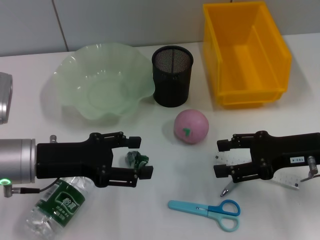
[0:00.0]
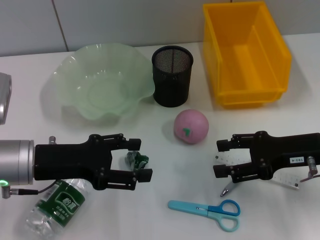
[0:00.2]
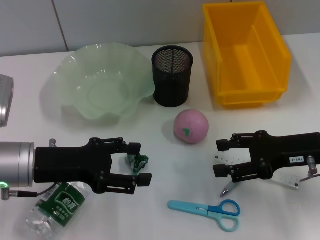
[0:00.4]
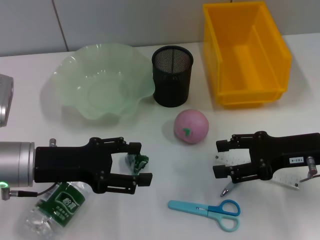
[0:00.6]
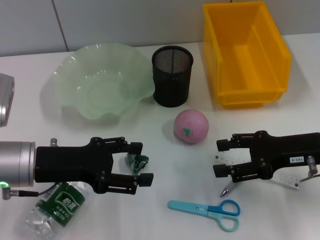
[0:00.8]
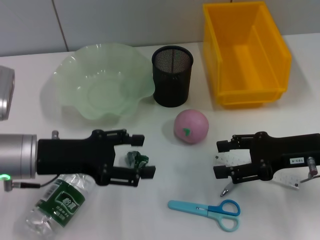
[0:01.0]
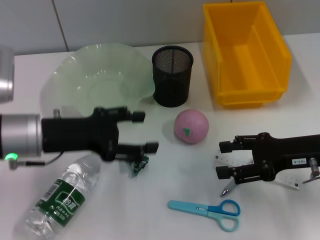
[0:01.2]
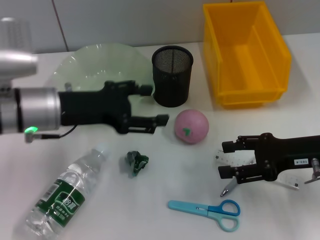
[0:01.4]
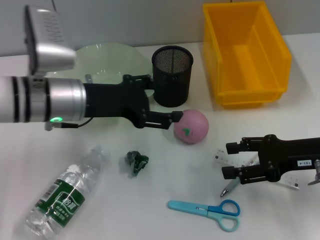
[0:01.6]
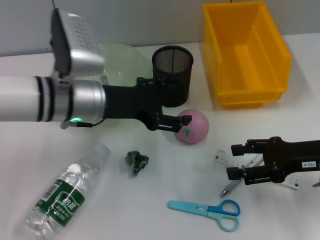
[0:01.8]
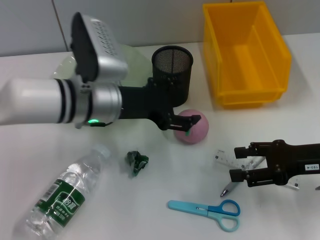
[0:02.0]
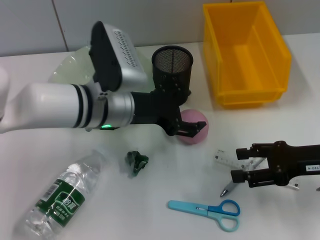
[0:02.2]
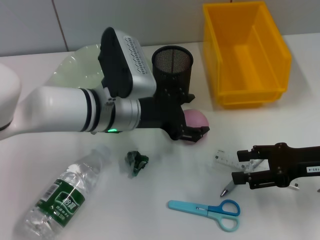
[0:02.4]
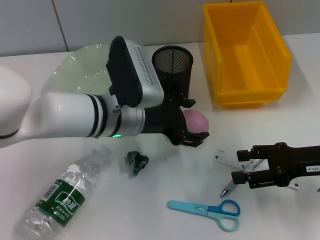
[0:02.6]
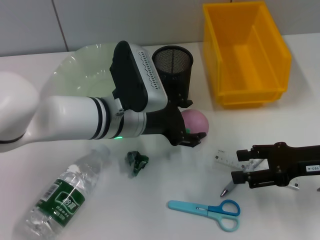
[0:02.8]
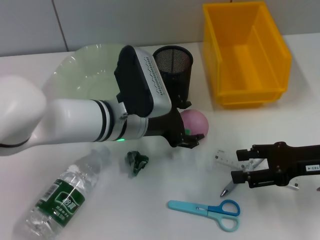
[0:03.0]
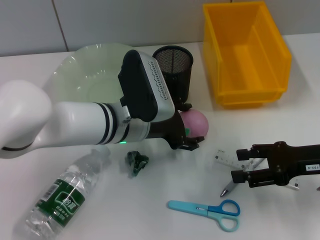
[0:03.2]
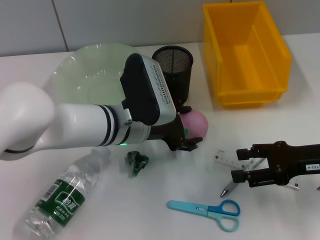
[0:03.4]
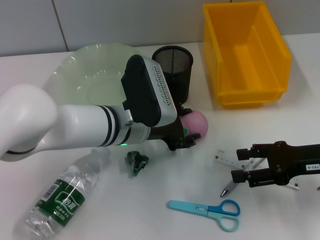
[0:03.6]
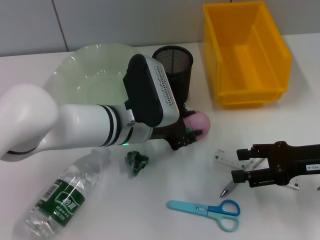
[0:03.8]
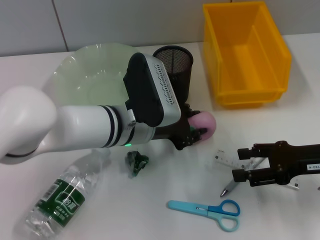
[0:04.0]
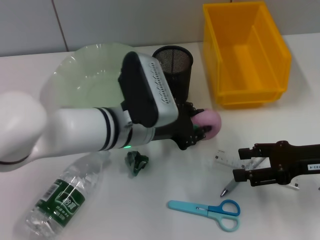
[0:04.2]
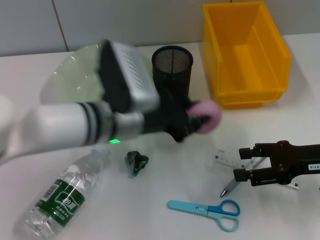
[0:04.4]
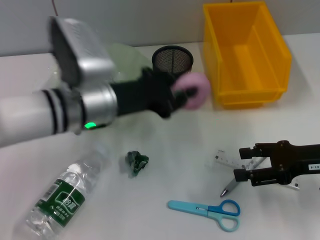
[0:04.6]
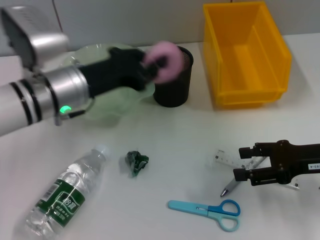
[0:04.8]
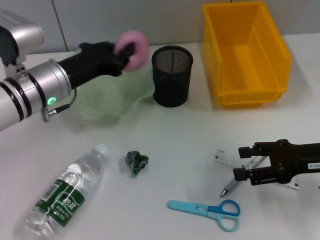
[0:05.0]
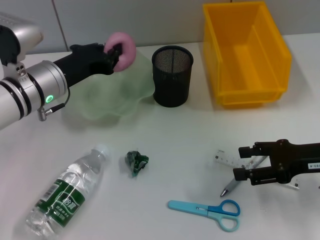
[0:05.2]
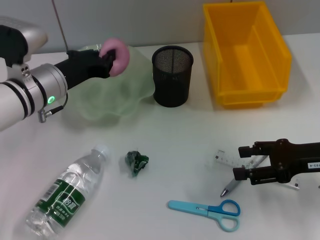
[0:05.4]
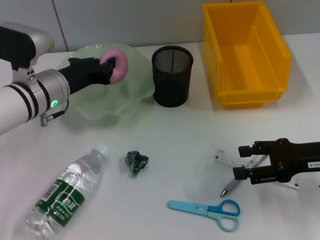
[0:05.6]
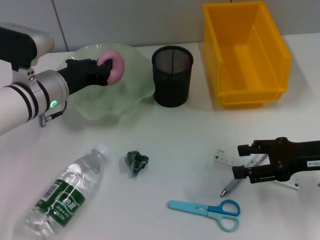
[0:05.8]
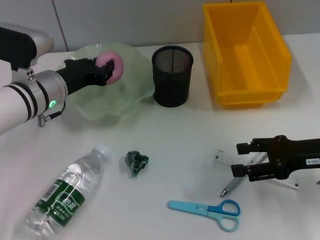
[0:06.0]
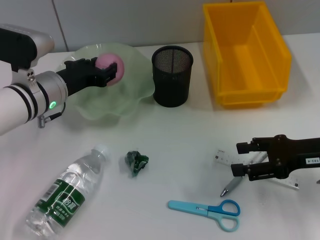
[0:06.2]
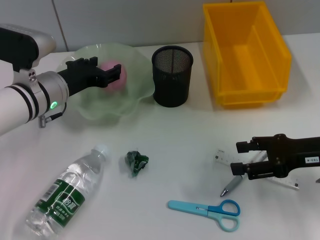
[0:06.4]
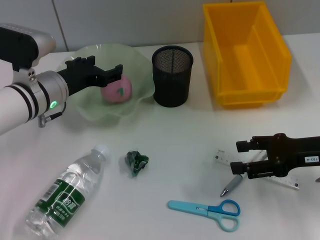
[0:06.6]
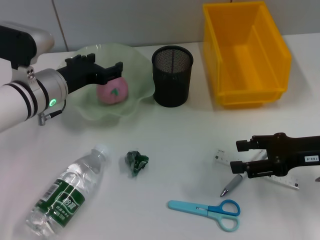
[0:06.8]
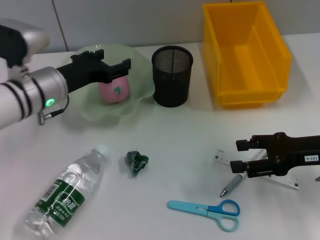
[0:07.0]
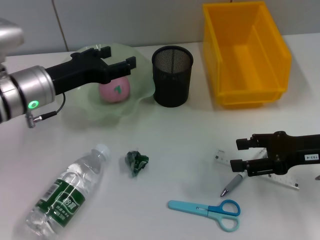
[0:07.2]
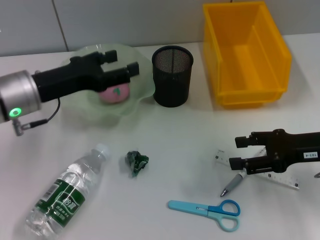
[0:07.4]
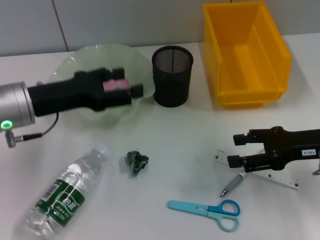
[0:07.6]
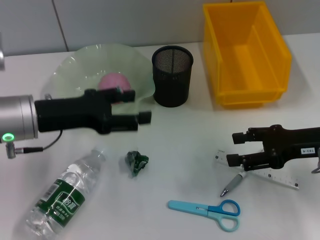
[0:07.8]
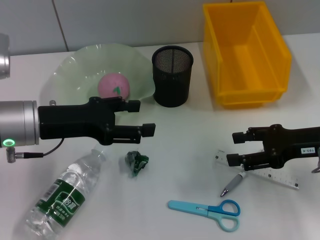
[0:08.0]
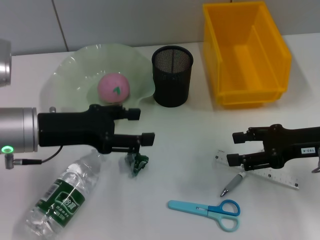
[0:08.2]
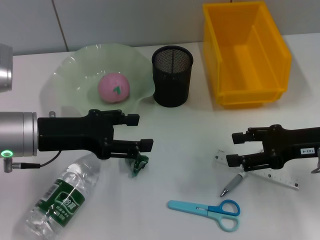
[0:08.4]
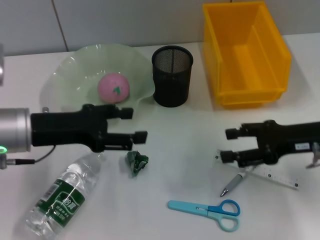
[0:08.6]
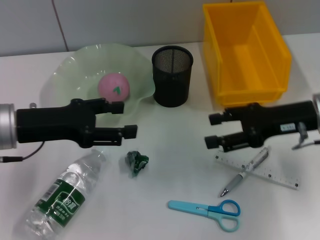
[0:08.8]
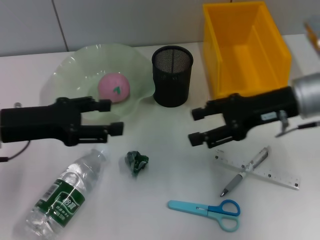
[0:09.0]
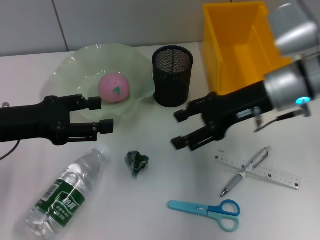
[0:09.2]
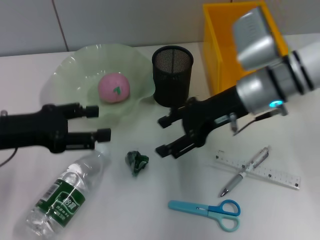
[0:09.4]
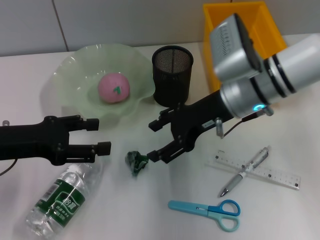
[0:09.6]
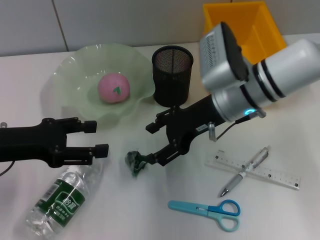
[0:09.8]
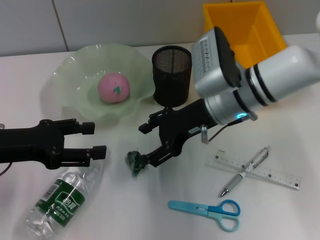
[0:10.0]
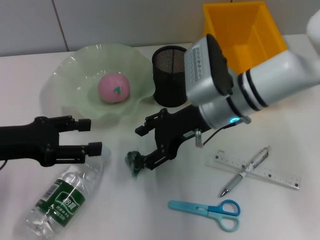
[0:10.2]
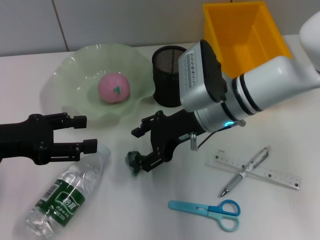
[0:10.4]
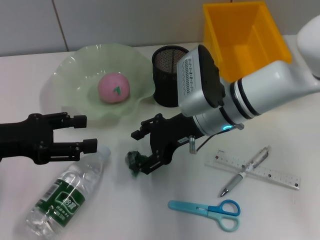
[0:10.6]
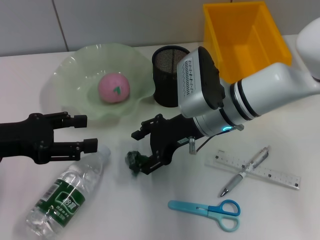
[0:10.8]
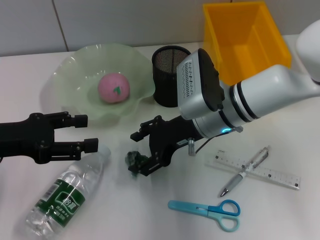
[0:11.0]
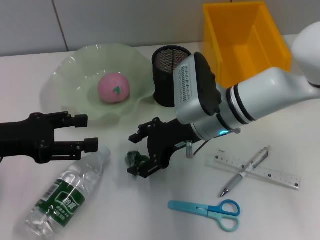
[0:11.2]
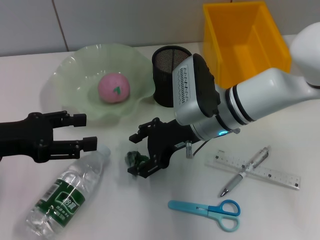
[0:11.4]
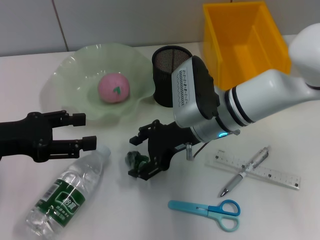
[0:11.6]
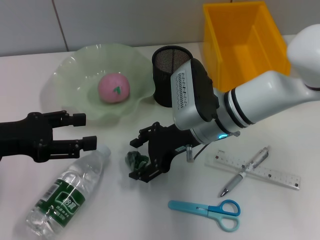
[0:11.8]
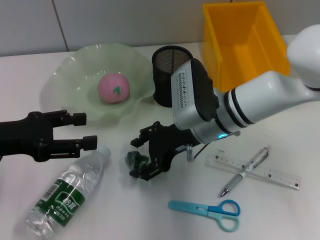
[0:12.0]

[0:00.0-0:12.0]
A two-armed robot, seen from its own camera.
Step, 0:00.0 to 0:03.6: Grab the peach with the left hand.
Step, 0:04.0 to 0:06.6: Place the peach into the fruit bowl with the left hand.
0:00.0 to 0:01.6: The left gripper heads forward and to the right, covering about 10 cm.
0:01.6 to 0:03.0: The left gripper moves to the right, roughly 10 cm.
0:03.0 to 0:04.4: The left gripper closes up.
0:04.4 to 0:06.0: The left gripper moves to the left and forward, approximately 10 cm.
0:06.0 to 0:07.6: The left gripper is displaced backward by roughly 5 cm, and opens up.
0:07.6 to 0:09.0: The right gripper heads to the left and forward, covering approximately 10 cm.
0:09.0 to 0:10.4: The right gripper travels to the left by about 10 cm.
0:10.4 to 0:12.0: The grippers make only small movements.

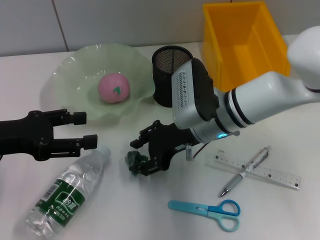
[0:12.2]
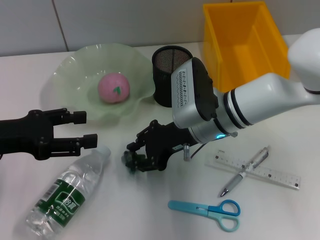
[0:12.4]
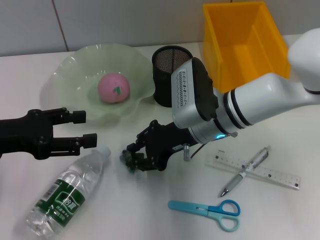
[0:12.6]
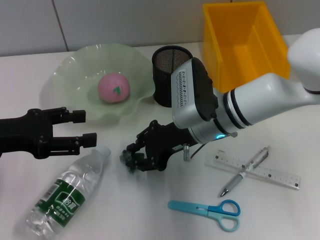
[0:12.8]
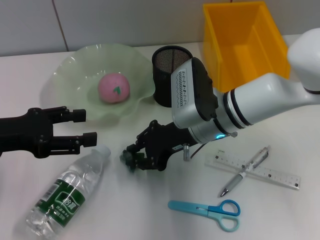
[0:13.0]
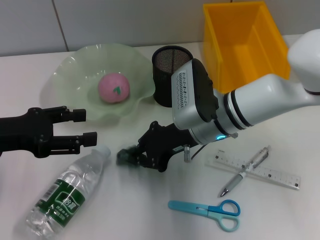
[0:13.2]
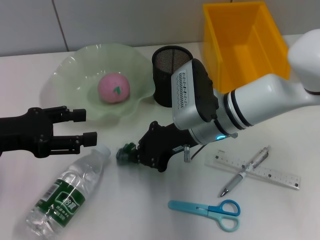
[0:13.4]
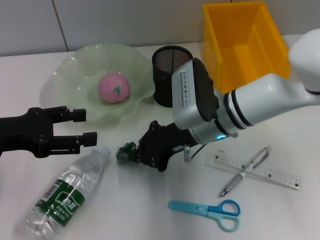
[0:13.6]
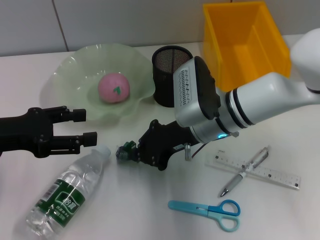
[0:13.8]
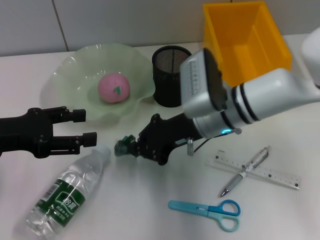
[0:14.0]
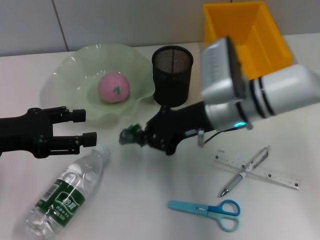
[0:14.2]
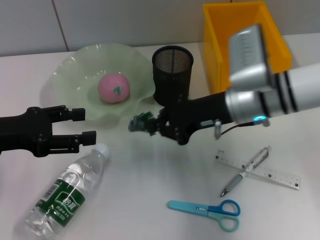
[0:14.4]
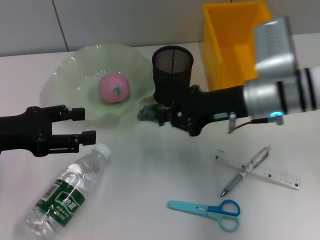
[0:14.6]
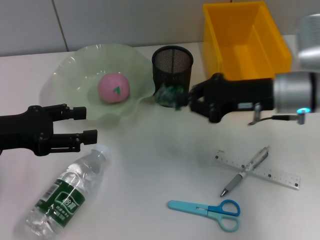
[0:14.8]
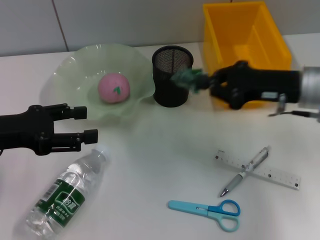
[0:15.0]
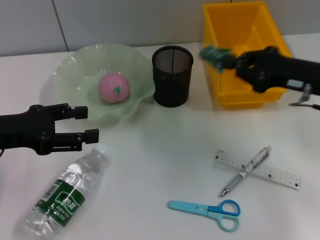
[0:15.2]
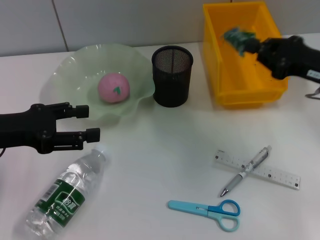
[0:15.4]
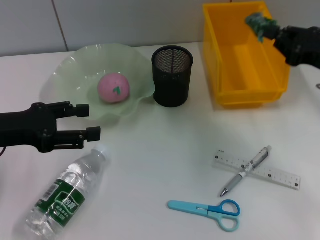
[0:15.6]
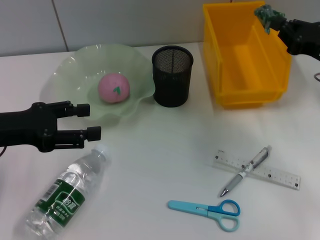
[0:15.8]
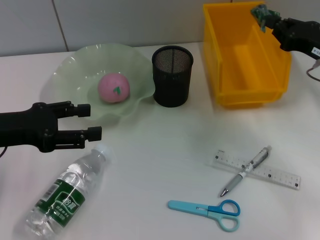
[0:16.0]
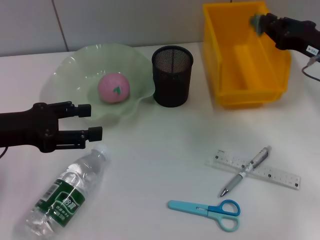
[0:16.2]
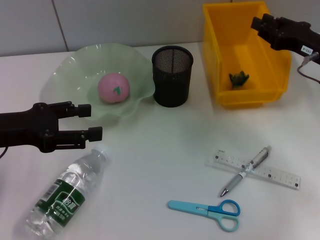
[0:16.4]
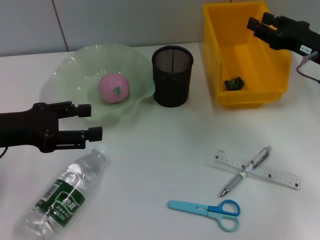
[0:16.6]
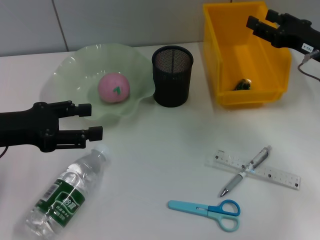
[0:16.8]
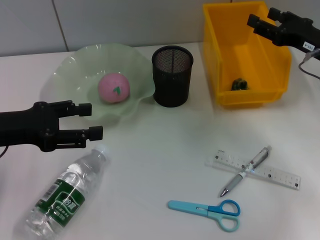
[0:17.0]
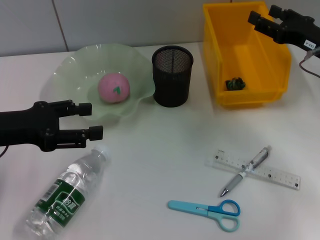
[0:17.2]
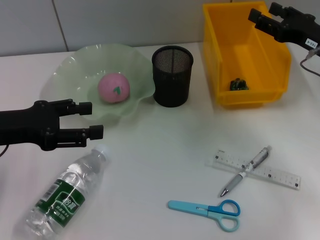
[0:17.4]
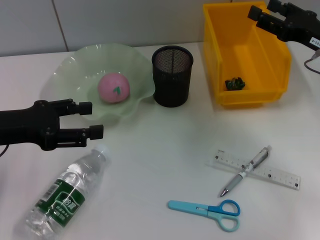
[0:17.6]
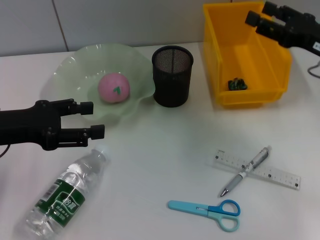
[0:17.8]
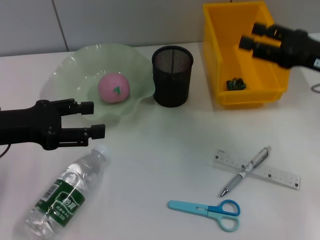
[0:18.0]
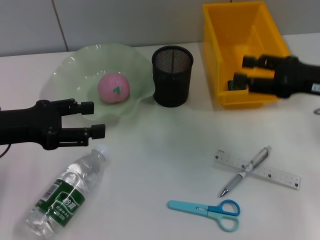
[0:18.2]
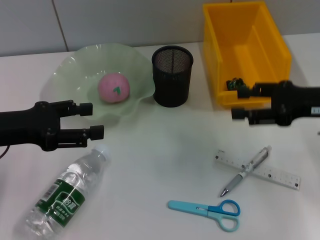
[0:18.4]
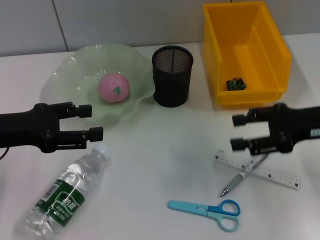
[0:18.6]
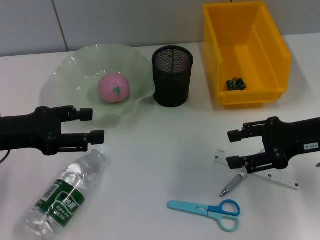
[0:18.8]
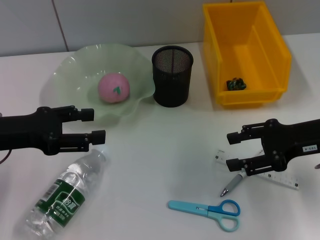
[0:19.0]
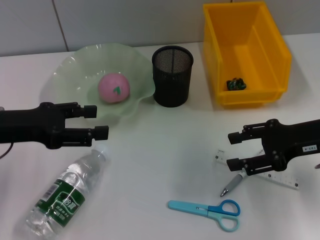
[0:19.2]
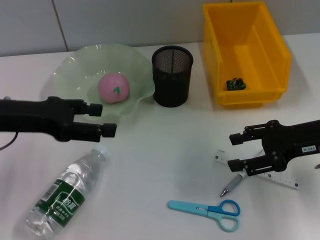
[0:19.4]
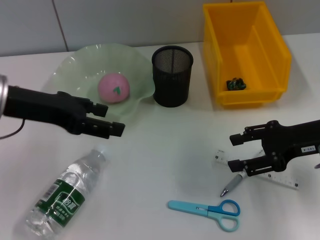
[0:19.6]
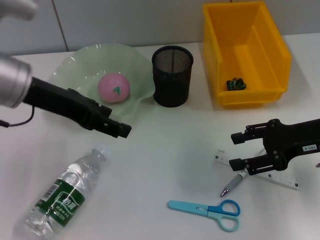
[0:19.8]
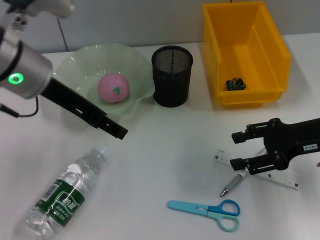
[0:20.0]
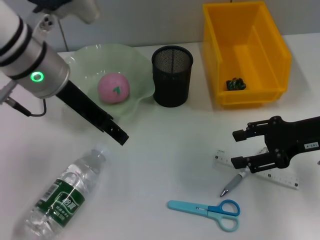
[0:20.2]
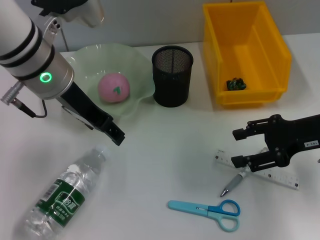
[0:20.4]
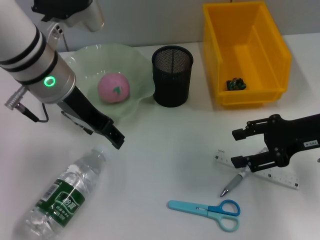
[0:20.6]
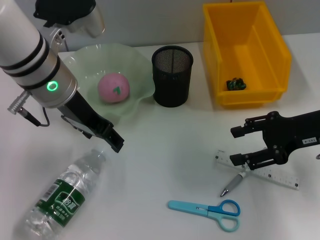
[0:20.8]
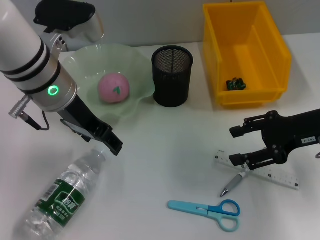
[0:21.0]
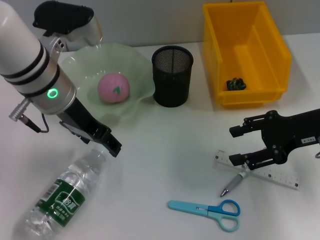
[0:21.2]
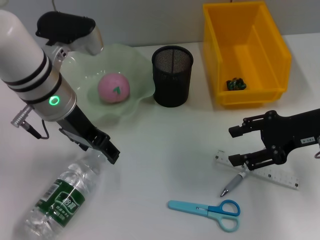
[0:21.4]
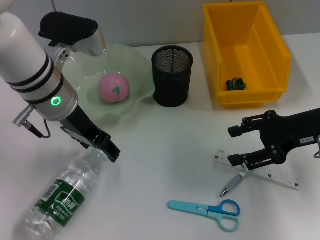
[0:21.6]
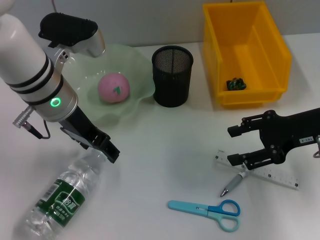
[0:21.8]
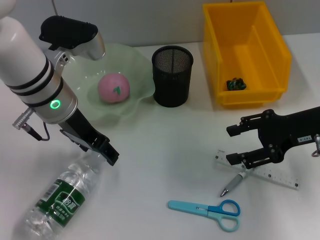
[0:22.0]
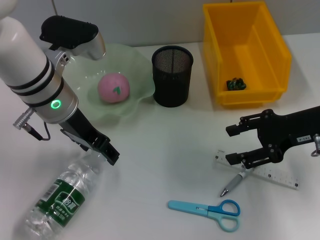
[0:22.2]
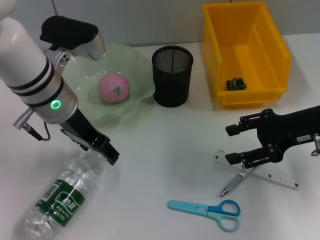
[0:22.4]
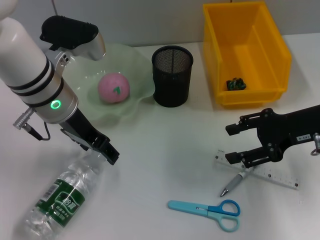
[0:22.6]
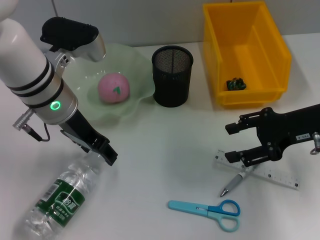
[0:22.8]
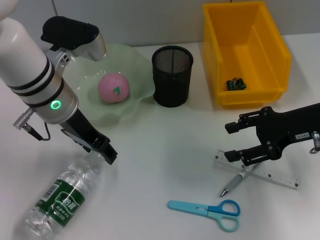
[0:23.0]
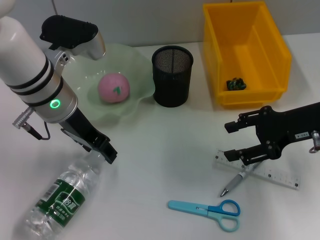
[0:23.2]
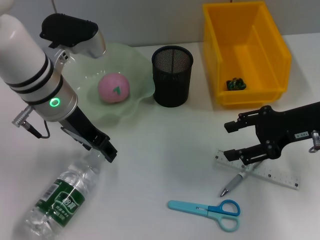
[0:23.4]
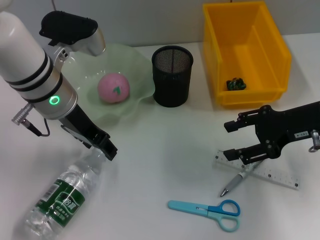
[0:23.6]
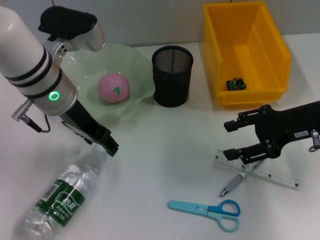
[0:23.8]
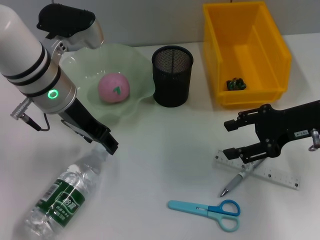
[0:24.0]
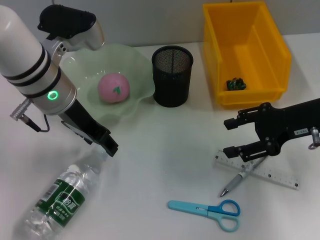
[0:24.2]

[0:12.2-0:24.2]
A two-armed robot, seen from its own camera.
Step, 0:13.8 to 0:17.2: Place the plastic into the trash can with the right hand.
0:12.2 to 0:13.8: The right gripper closes up.
0:13.8 to 0:15.2: The right gripper travels to the right by about 20 cm.
0:16.6 to 0:18.2: The right gripper changes place by roughly 5 cm, and opens up.
0:18.2 to 0:19.8: The left gripper shifts some 10 cm to the right and upward.
0:19.8 to 0:21.2: The left gripper travels to the right by about 5 cm.
0:21.2 to 0:22.6: The grippers move only a little.
0:22.6 to 0:24.2: Neither gripper changes place.
